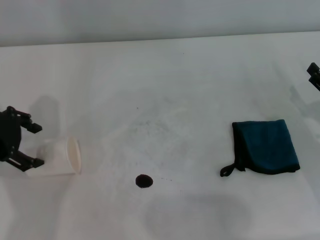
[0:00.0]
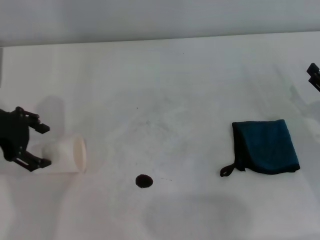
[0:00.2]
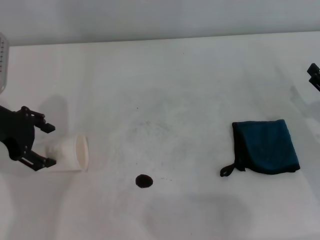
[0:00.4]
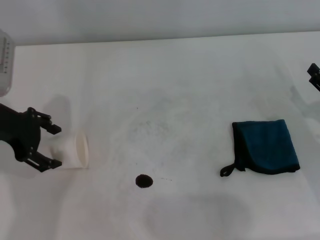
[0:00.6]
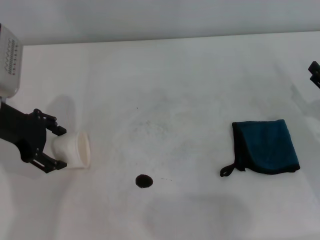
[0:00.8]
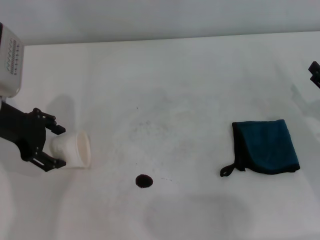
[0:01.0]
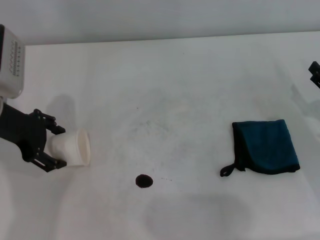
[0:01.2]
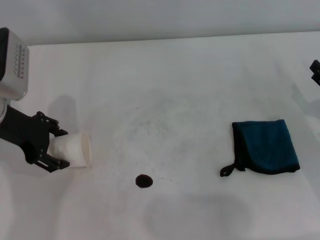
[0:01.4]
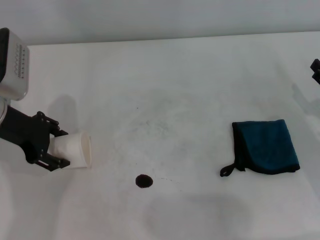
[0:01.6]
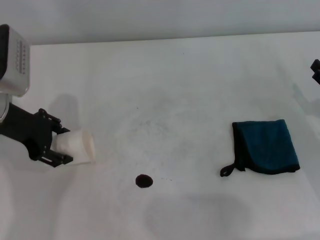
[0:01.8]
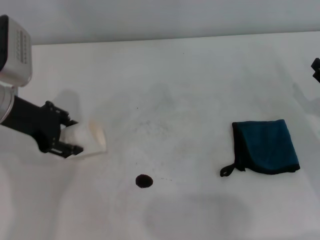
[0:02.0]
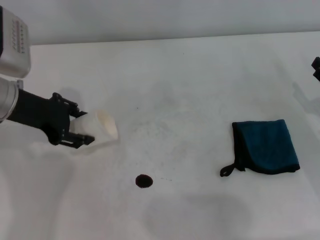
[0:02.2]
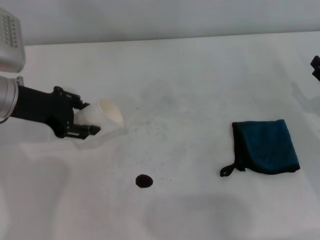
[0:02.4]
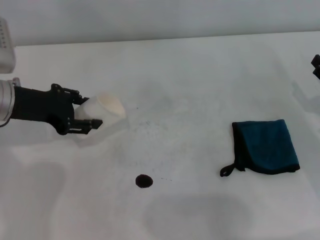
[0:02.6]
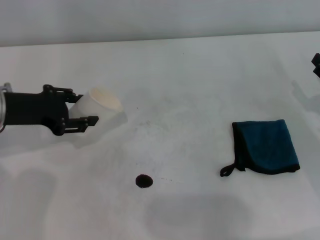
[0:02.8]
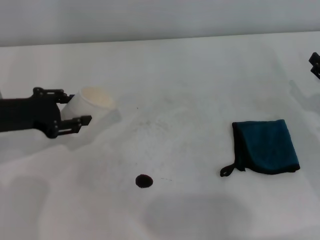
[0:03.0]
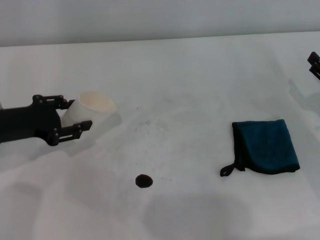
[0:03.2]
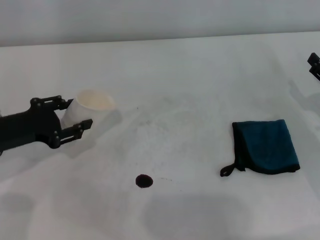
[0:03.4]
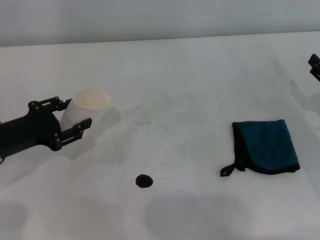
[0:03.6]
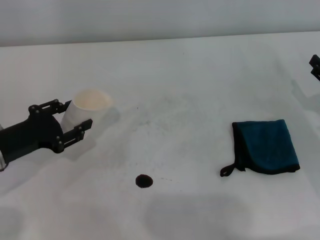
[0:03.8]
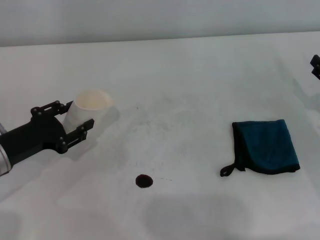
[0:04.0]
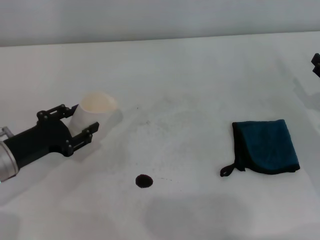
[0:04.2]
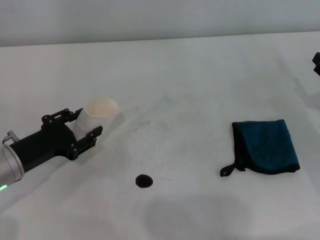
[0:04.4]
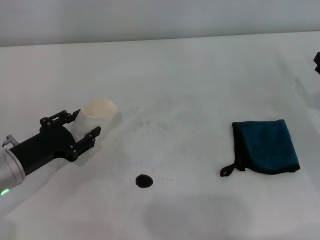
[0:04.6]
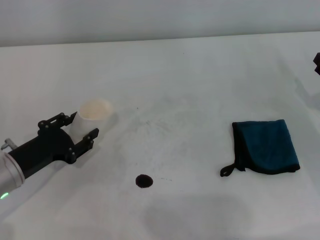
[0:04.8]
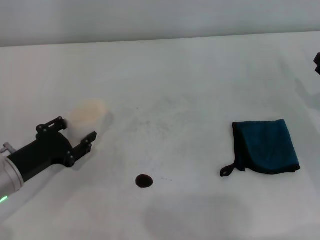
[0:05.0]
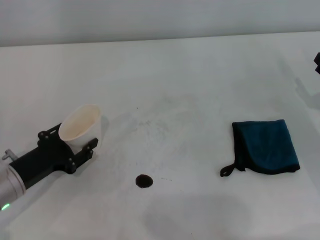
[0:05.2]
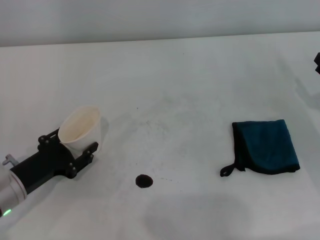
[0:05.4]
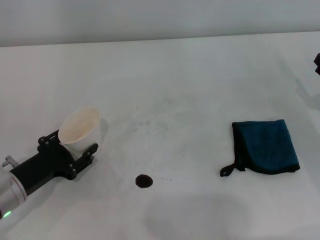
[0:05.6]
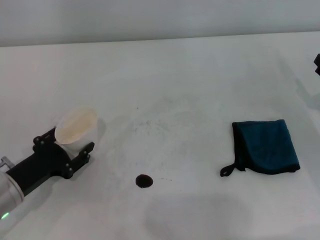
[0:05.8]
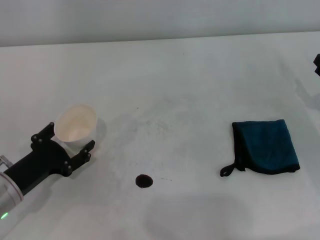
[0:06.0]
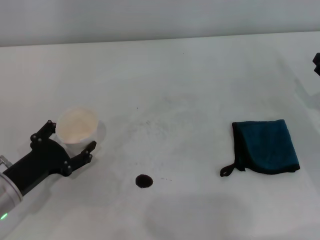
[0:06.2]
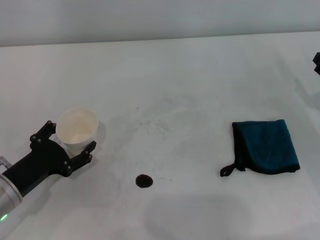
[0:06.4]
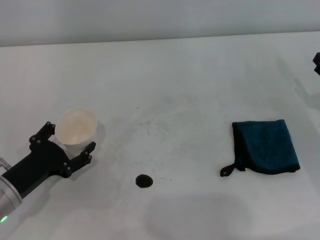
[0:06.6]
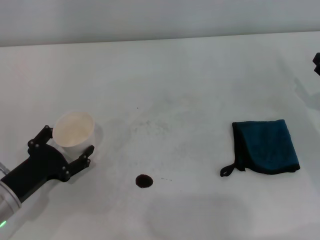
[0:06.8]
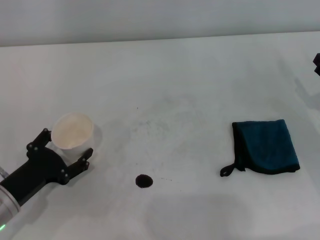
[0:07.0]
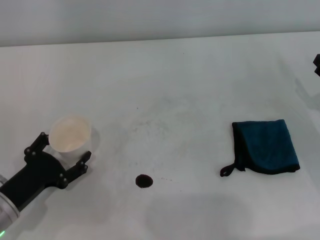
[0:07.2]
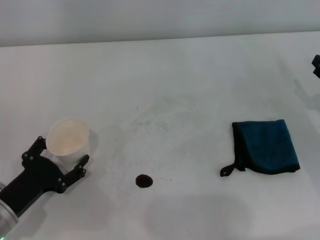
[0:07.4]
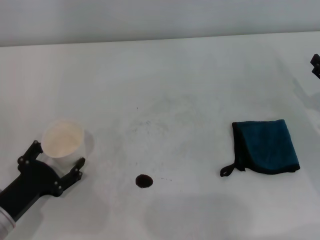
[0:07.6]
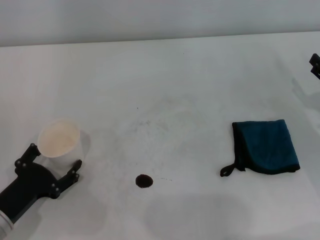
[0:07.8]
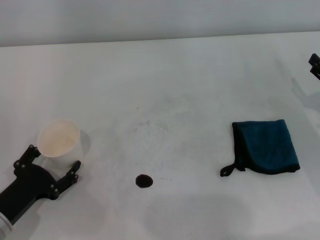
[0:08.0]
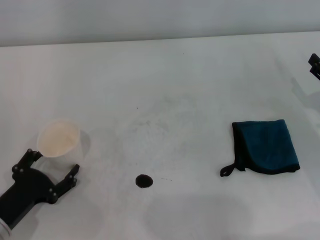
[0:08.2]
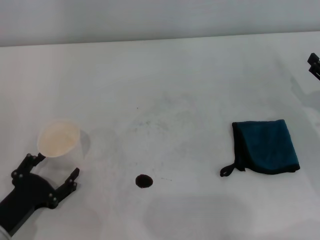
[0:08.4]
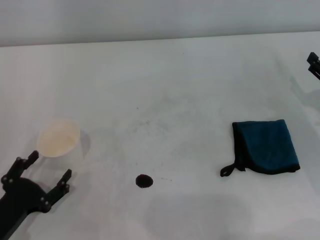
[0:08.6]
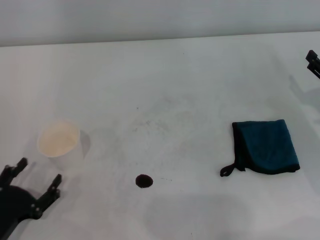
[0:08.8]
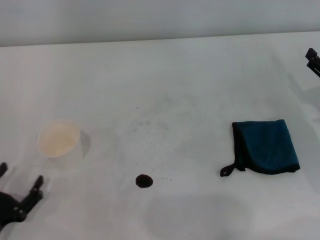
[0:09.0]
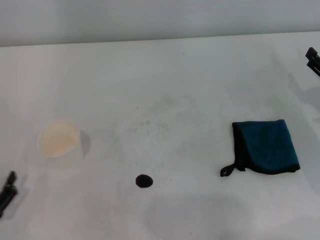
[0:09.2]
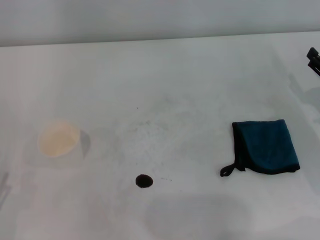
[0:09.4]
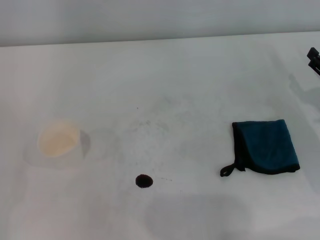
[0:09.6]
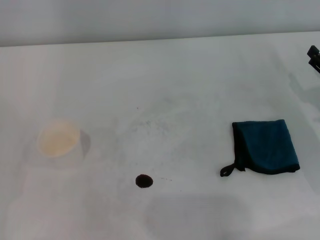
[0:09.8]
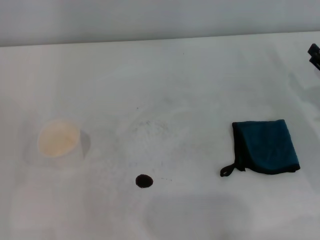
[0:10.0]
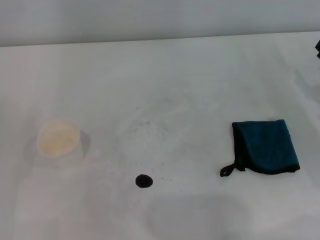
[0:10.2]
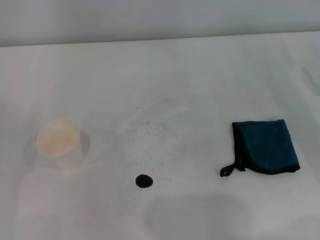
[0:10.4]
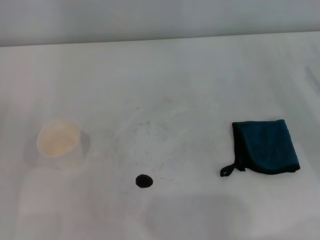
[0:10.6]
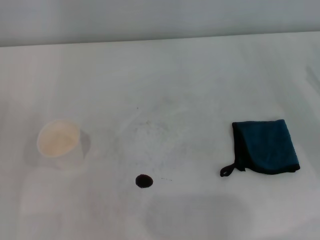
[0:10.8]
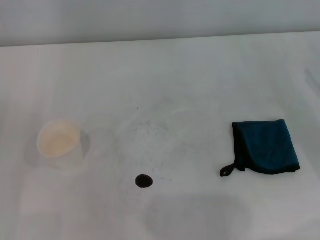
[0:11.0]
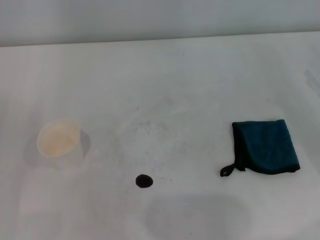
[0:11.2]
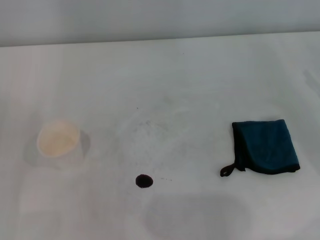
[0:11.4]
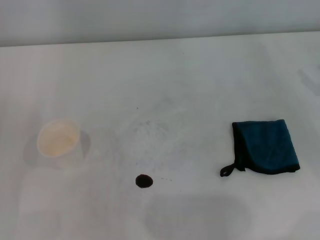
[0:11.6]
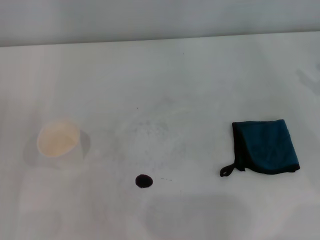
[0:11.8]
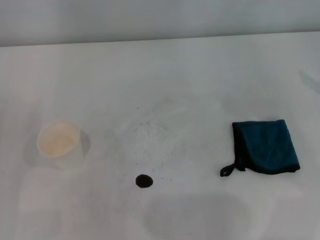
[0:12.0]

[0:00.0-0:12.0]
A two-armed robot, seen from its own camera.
Step, 0:02.0 to 0:07.8: Stand the paper cup upright with the left gripper.
0:00.0 to 0:01.6: The grippers move only a little.
0:01.6 to 0:03.0: The left gripper closes.
0:03.0 to 0:04.4: The left gripper moves downward and backward, approximately 10 cm.
0:04.4 to 0:06.0: The grippers move only a little.
0:06.0 to 0:07.6: The left gripper opens its fingers.
0:07.6 to 0:09.0: The left gripper heads backward, covering about 5 cm.
0:09.0 to 0:10.4: The left gripper shifts by roughly 5 cm.

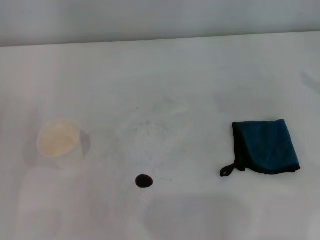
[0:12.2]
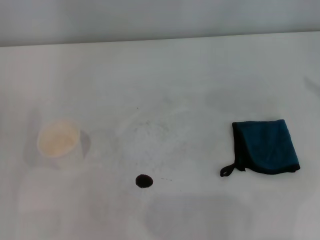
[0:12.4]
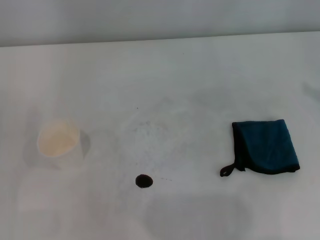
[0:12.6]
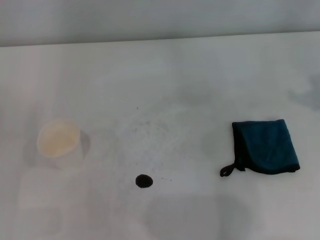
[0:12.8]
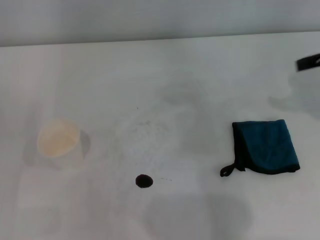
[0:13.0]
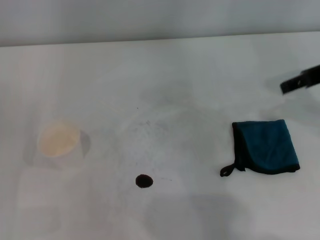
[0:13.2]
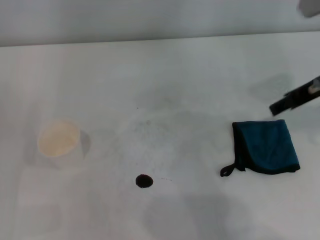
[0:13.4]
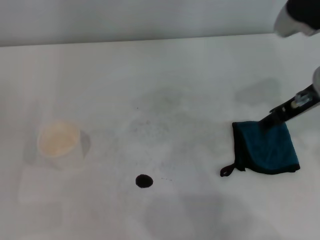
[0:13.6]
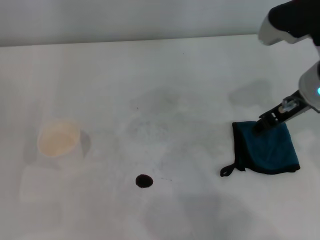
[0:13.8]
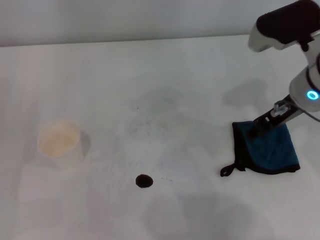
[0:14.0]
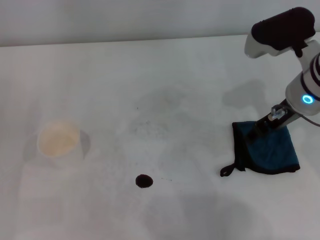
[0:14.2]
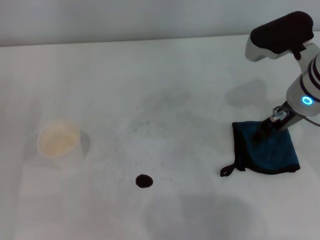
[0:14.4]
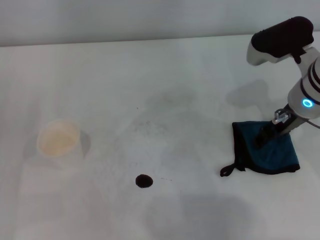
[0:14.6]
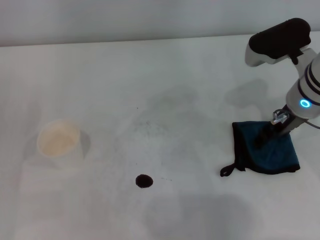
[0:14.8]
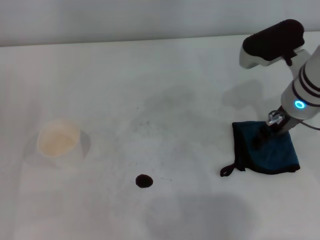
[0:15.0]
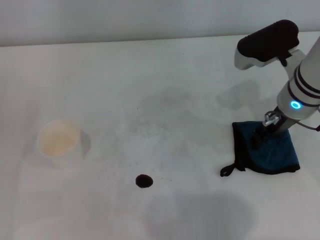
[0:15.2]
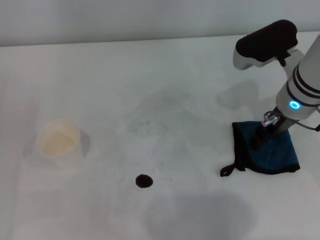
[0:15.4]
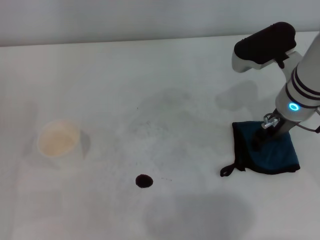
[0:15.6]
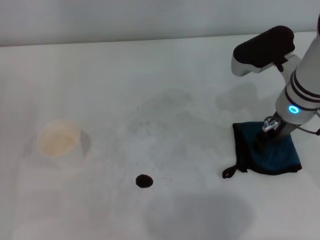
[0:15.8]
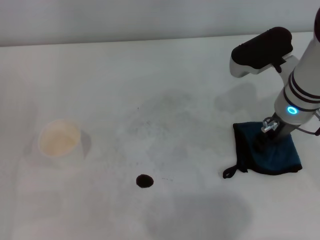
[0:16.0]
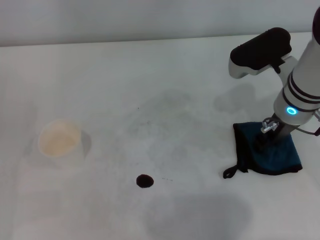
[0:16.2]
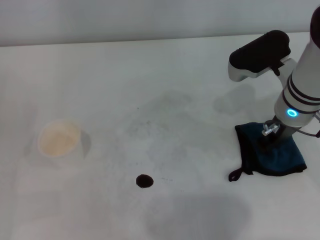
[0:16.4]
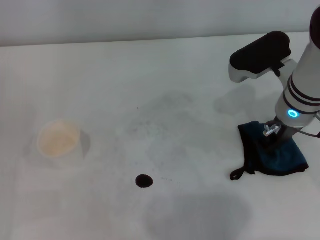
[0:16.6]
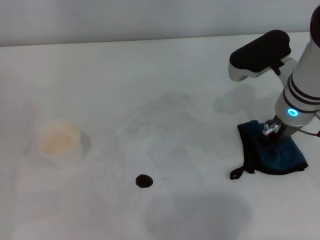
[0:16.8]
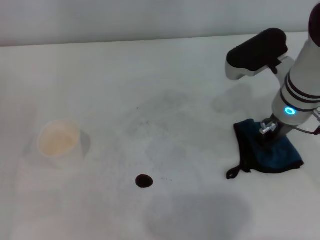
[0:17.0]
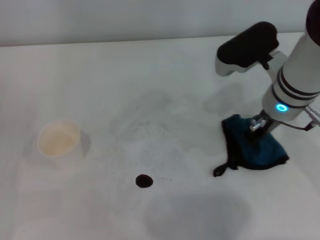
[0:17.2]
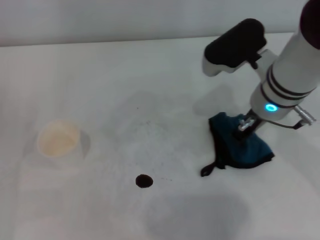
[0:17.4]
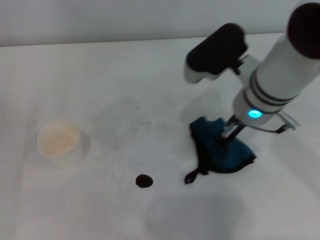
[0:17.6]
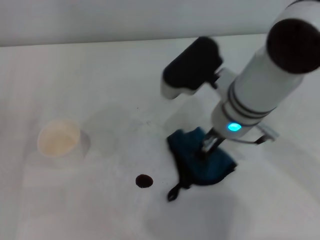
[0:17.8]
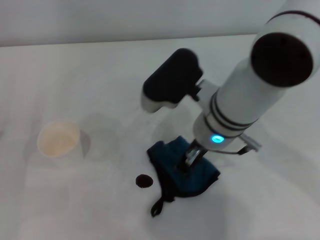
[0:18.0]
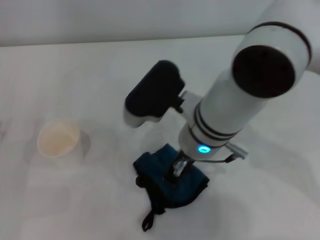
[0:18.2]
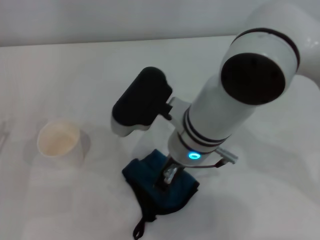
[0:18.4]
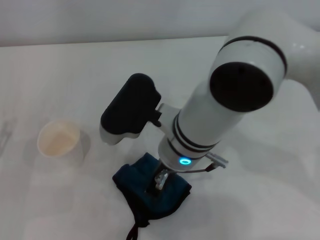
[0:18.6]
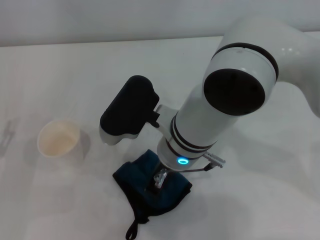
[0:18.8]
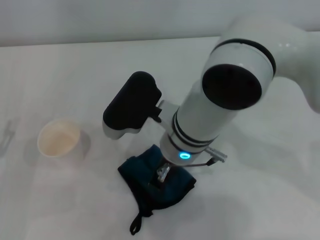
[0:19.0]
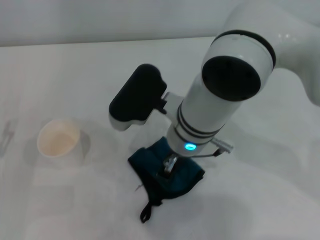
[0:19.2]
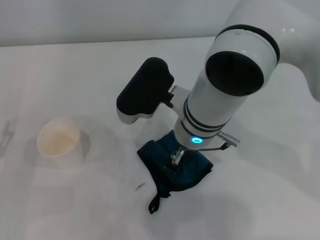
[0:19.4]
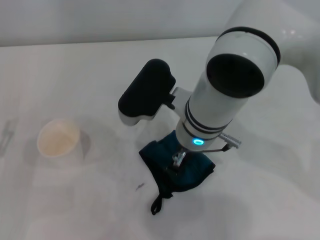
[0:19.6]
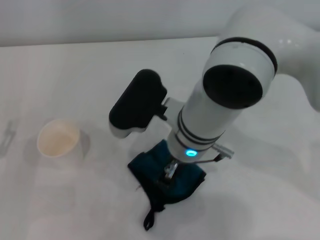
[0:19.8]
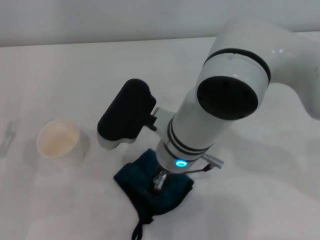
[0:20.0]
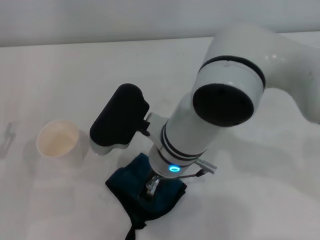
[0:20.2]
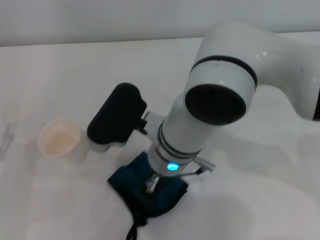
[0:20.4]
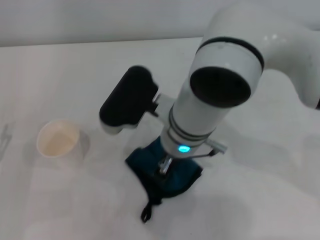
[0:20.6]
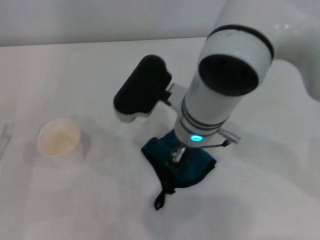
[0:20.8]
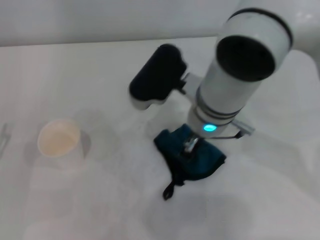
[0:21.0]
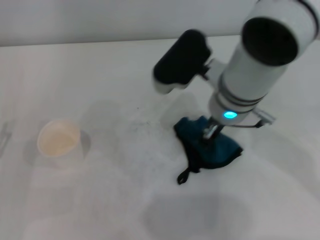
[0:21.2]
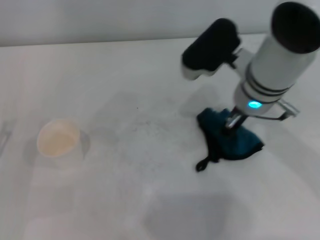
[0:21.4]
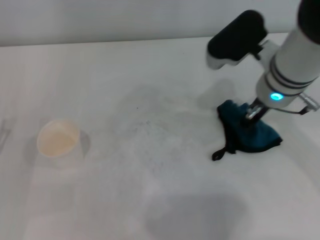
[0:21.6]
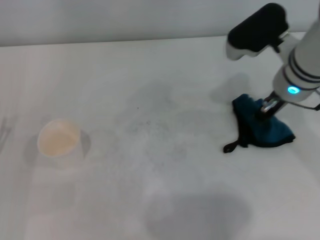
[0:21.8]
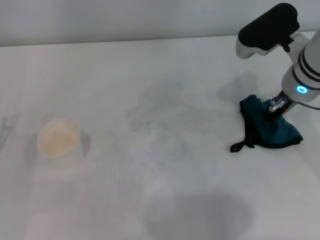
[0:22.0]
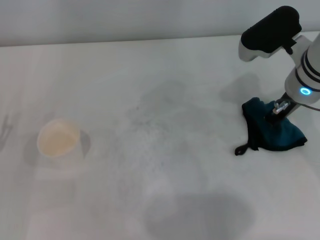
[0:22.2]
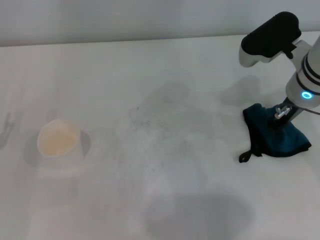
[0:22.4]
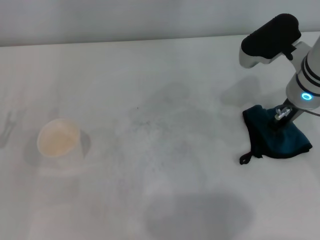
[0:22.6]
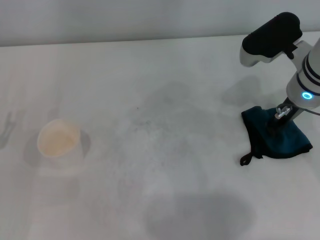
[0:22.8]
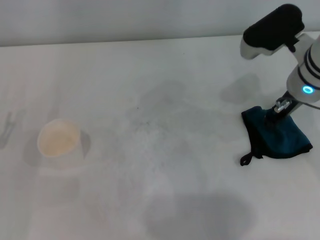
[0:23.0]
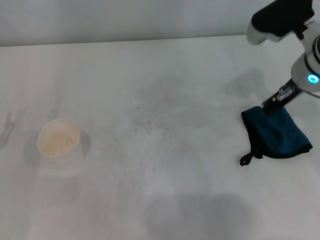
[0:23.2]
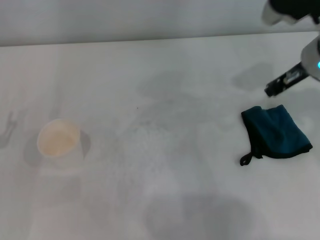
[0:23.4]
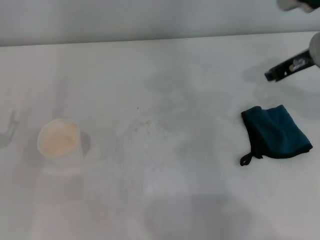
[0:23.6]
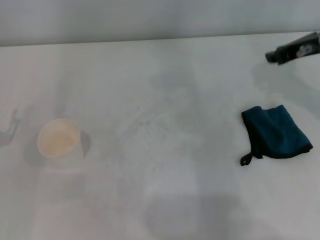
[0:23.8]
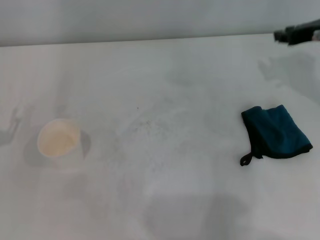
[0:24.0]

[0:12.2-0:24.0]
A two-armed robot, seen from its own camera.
Step, 0:12.2 to 0:16.6: Grasp the rag with the right gripper.
Step, 0:16.8 to 0:21.6: Wipe the stains off the table with the right gripper.
Step, 0:21.8 to 0:22.6: Place the rag on the table with the right gripper.
0:12.2 to 0:13.6: The right gripper goes some 15 cm to the left.
0:13.6 to 0:15.2: The right gripper goes about 5 cm downward.
0:15.2 to 0:16.6: The right gripper closes.
0:16.6 to 0:18.2: The right gripper moves to the left, some 15 cm, and closes.
0:18.2 to 0:21.0: The grippers make only small movements.
0:21.0 to 0:22.6: The right gripper moves to the right, some 15 cm.
0:22.6 to 0:24.0: The right gripper is displaced to the right by some 10 cm.
